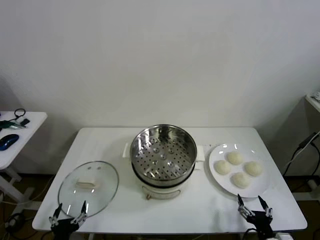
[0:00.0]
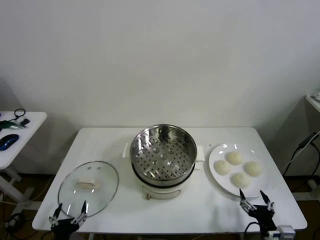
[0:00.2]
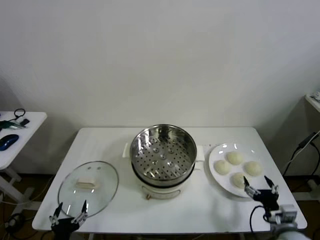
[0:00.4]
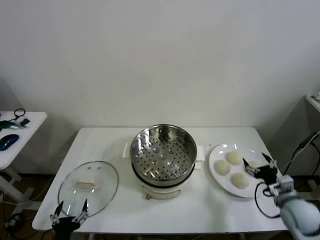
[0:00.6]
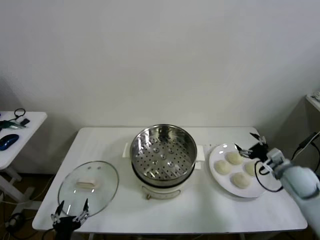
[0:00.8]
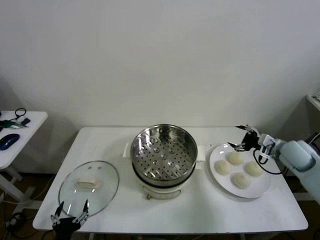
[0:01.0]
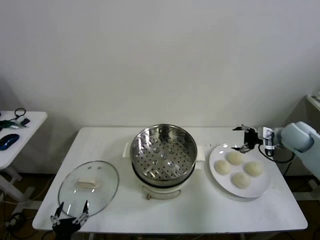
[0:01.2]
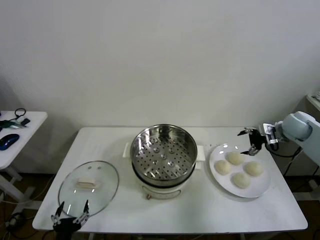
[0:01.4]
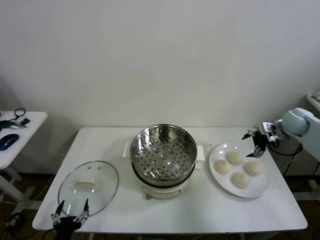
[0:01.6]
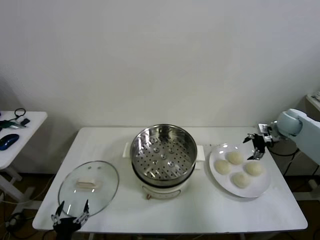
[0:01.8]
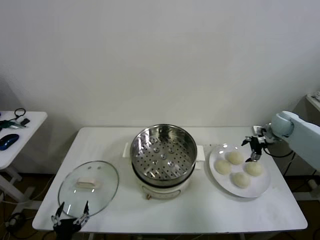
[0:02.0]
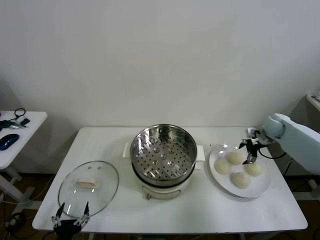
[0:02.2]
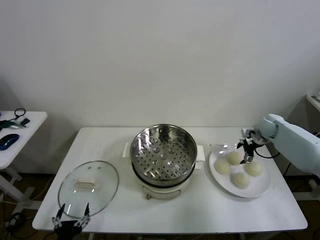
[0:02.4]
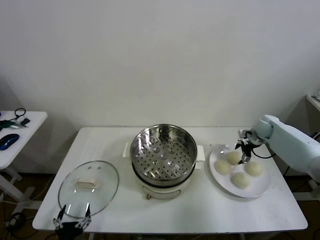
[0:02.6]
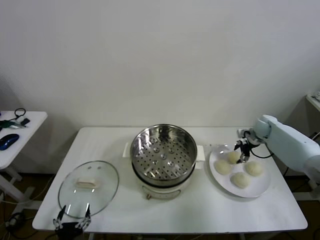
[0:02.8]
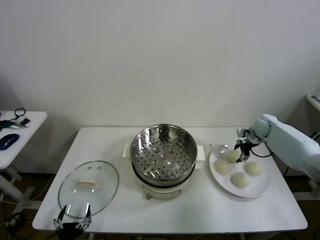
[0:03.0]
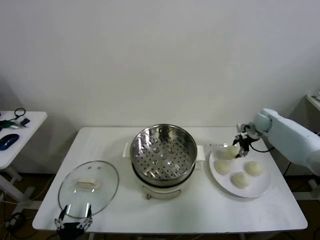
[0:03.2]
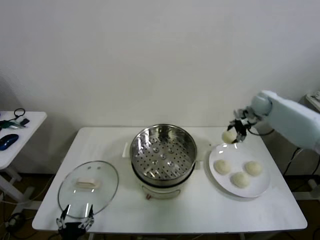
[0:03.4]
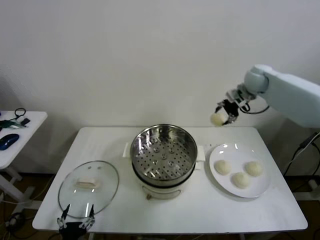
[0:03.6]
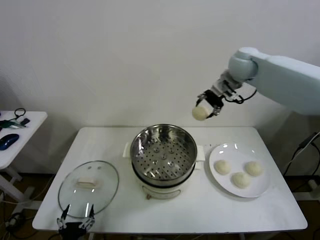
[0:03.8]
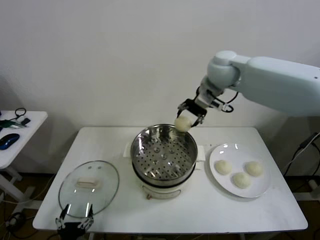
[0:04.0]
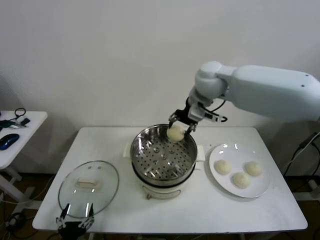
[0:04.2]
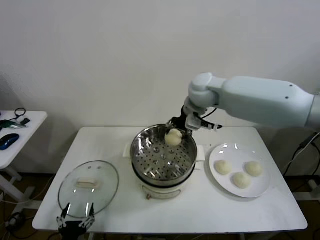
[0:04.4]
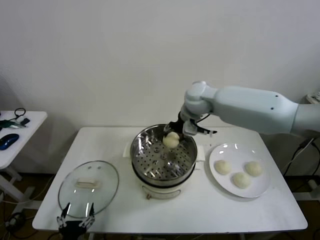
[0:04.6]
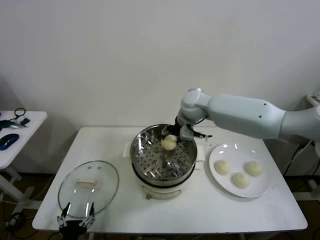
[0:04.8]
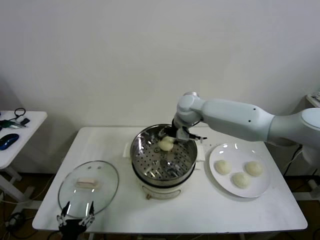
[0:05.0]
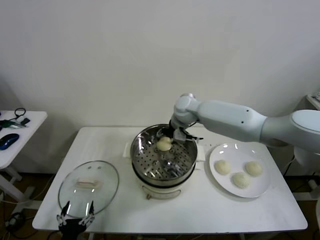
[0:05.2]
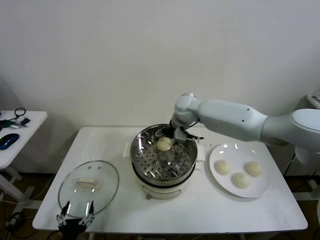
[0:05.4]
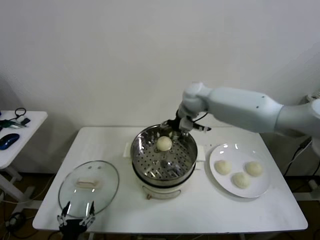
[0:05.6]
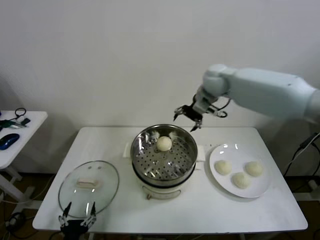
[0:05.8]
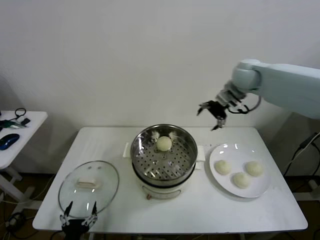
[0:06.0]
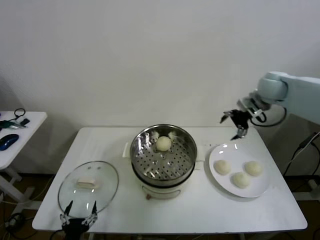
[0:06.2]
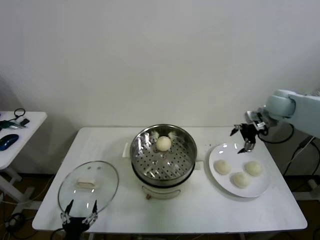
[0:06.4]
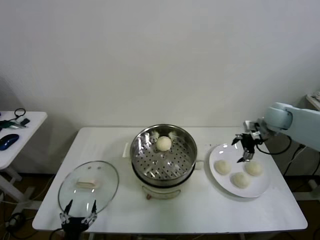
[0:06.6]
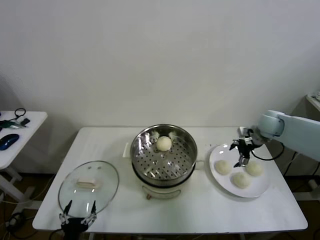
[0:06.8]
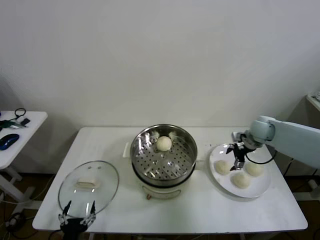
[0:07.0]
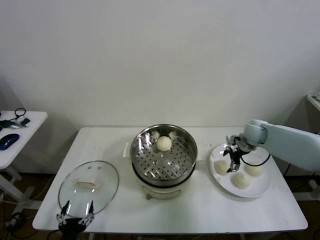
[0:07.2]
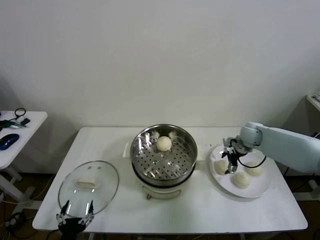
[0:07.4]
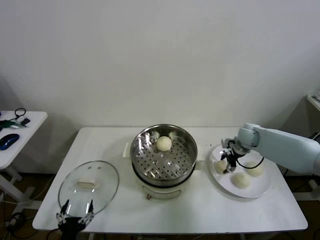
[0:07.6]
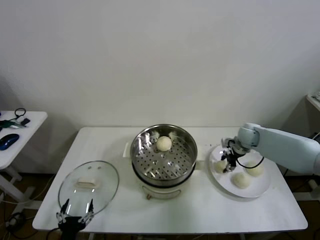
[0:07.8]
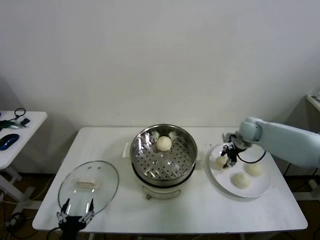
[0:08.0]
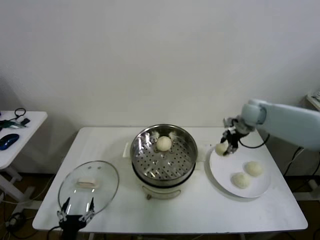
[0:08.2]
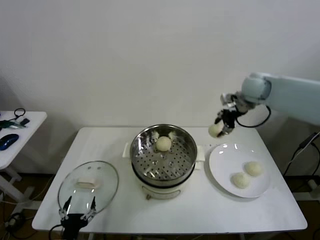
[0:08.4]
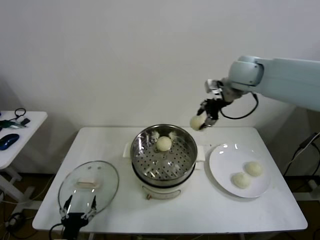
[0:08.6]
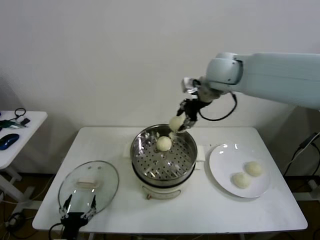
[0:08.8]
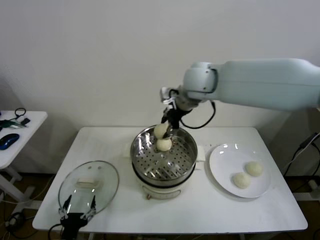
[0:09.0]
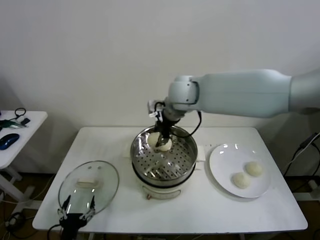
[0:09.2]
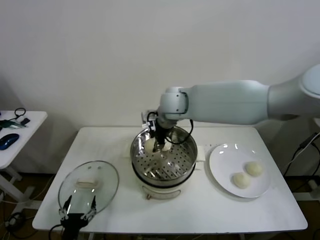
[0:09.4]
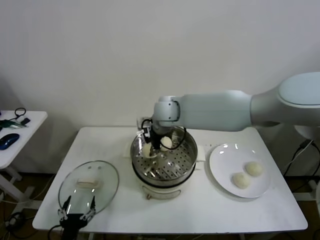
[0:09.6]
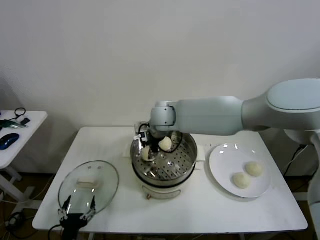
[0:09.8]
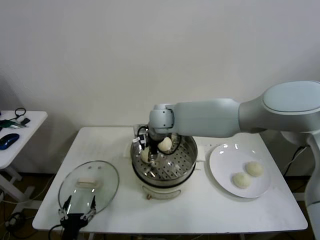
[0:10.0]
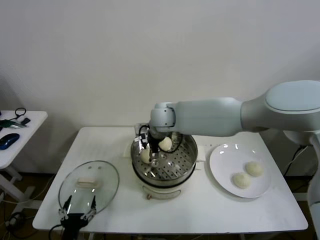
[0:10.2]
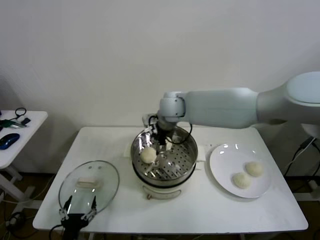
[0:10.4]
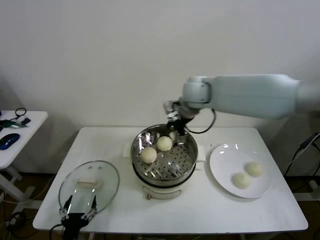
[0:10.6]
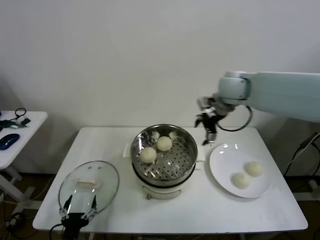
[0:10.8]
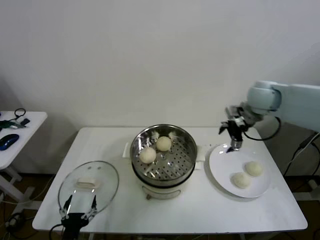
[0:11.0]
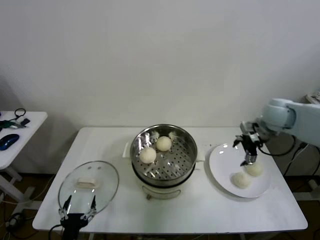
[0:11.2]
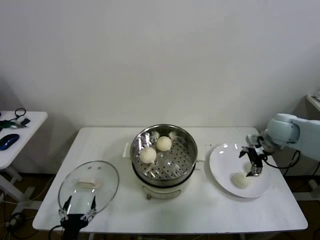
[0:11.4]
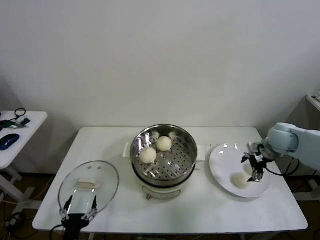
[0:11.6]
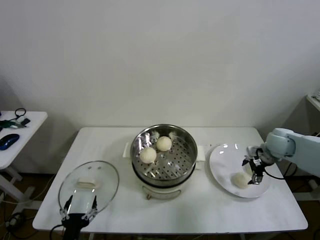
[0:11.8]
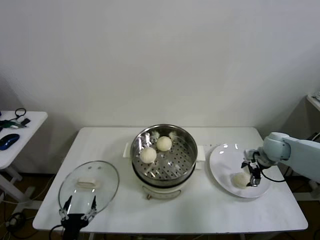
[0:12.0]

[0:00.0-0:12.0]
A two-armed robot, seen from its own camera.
Step, 0.0 to 2.8 s: Grasp the baozi in the plate with right gripper.
Step, 3.0 to 5.2 s: Place the baozi on the steamer with right gripper.
Step, 5.4 to 7.6 s: Grasp the baozi in the plate with right gripper.
Step, 7.8 to 10.0 s: Place the baozi on the steamer with right gripper.
1.6 to 3.0 s: The right gripper is displaced downward and forward by about 10 cm, and closes.
3.0 to 4.4 s: The right gripper travels to the left and upward by about 35 cm.
4.4 to 6.0 s: The right gripper shifts roughly 20 cm to the right, and opens up.
6.0 to 7.6 s: The right gripper travels downward by roughly 25 cm, and closes up.
7.6 to 9.0 s: The right gripper moves to the left and upward, some 35 cm.
9.0 to 10.4 s: The right gripper heads downward, covering about 10 cm, and opens.
10.4 to 12.0 s: The right gripper travels to the right and downward by approximately 40 cm.

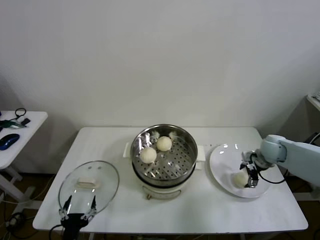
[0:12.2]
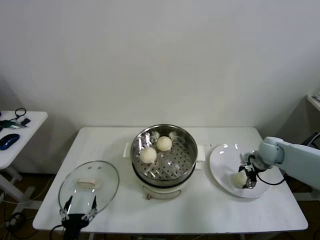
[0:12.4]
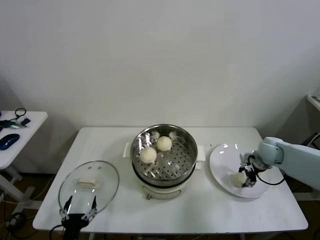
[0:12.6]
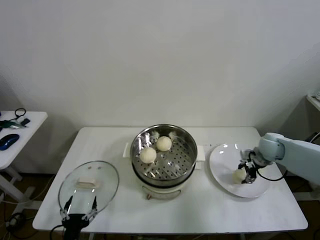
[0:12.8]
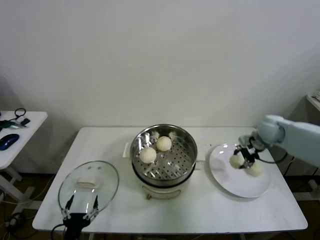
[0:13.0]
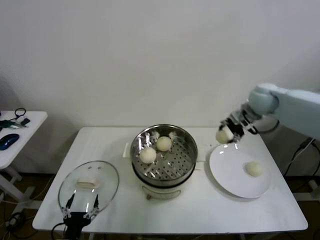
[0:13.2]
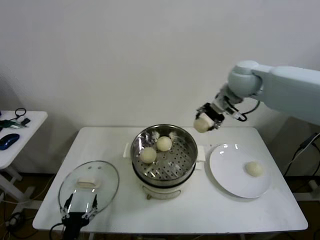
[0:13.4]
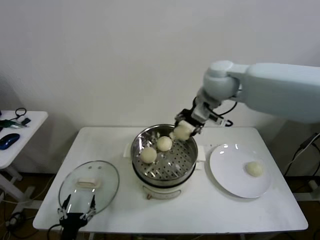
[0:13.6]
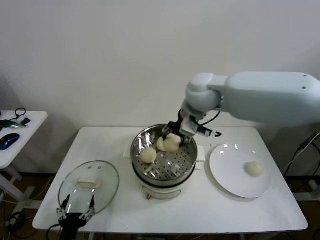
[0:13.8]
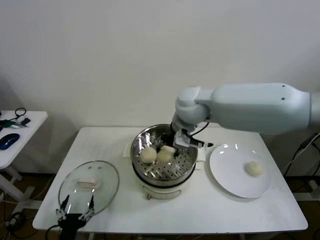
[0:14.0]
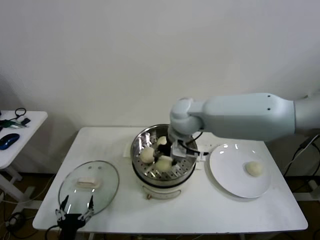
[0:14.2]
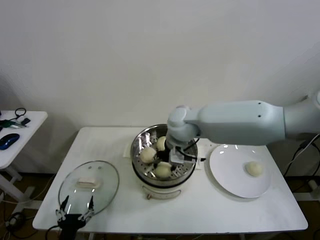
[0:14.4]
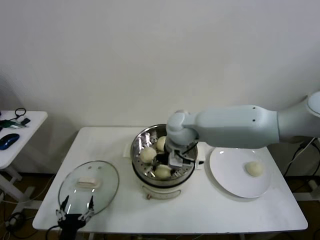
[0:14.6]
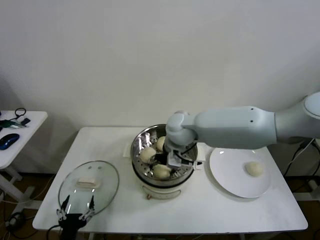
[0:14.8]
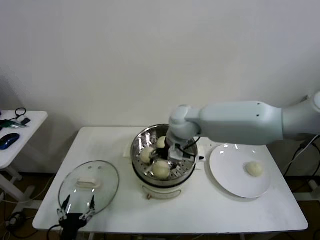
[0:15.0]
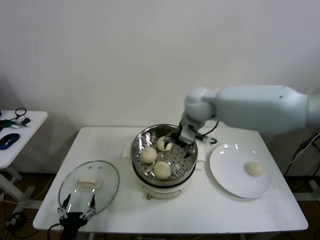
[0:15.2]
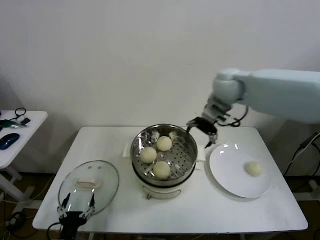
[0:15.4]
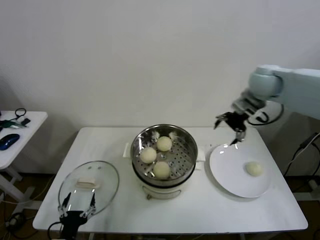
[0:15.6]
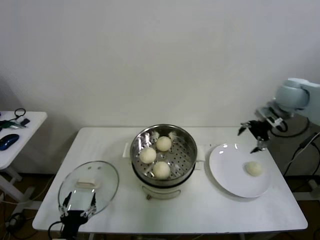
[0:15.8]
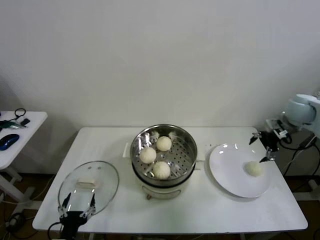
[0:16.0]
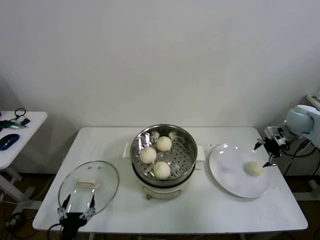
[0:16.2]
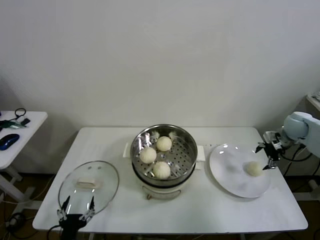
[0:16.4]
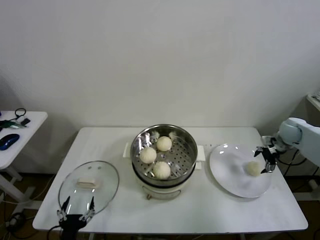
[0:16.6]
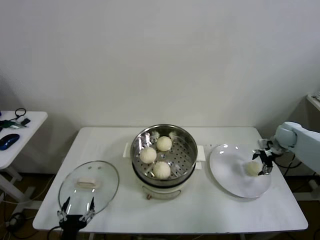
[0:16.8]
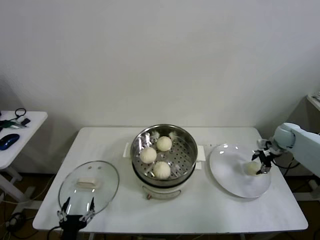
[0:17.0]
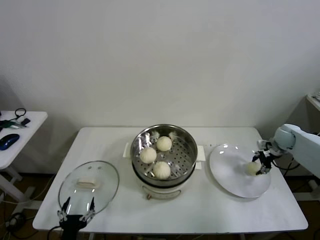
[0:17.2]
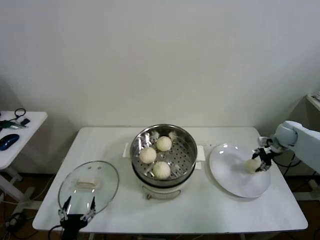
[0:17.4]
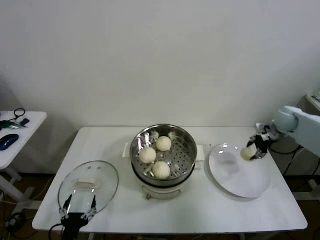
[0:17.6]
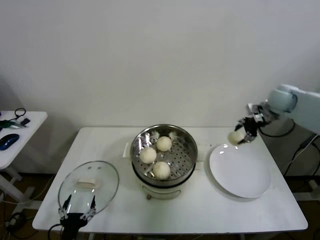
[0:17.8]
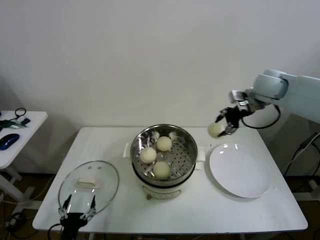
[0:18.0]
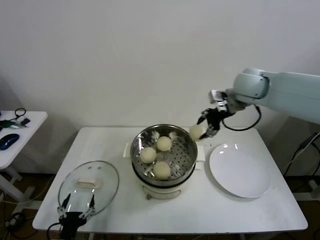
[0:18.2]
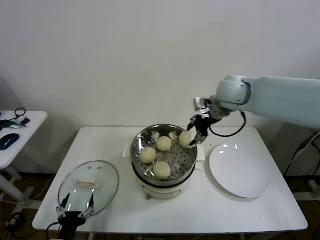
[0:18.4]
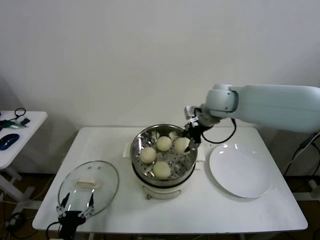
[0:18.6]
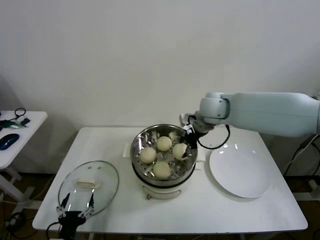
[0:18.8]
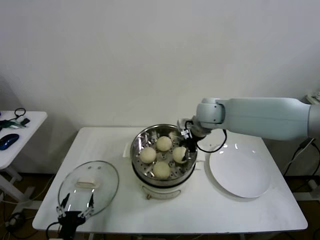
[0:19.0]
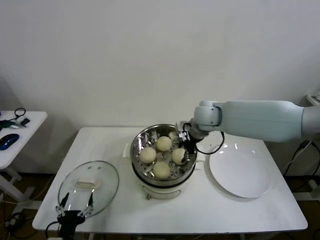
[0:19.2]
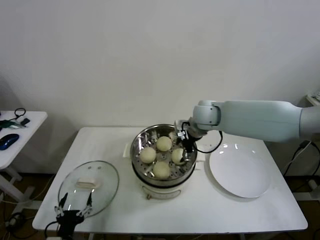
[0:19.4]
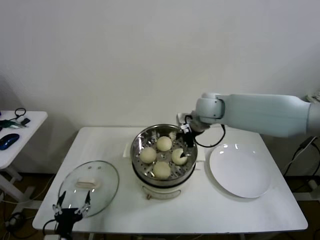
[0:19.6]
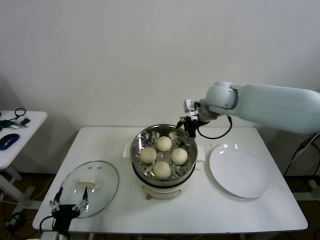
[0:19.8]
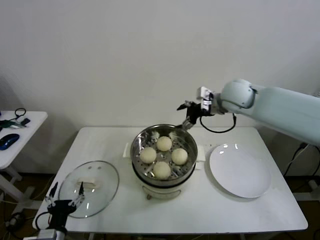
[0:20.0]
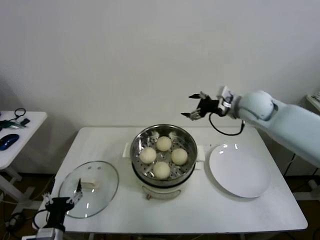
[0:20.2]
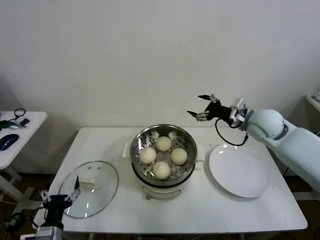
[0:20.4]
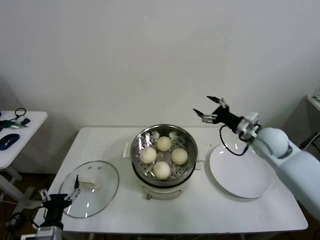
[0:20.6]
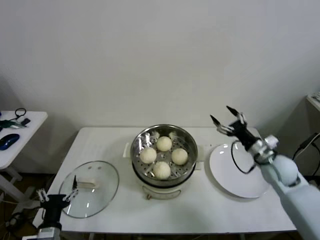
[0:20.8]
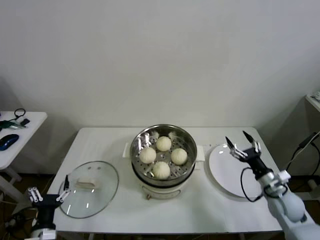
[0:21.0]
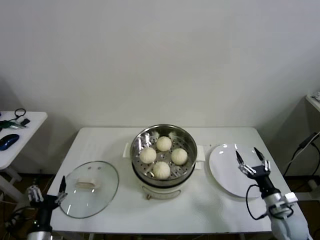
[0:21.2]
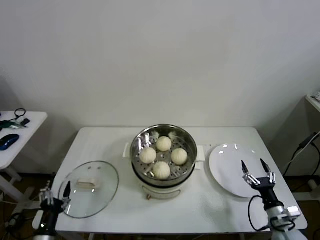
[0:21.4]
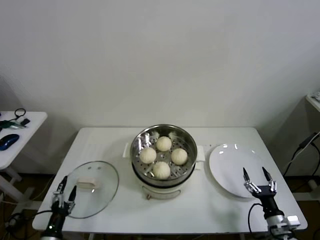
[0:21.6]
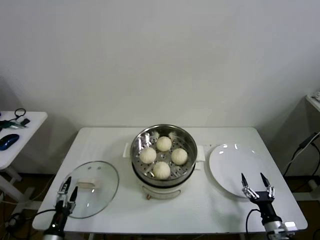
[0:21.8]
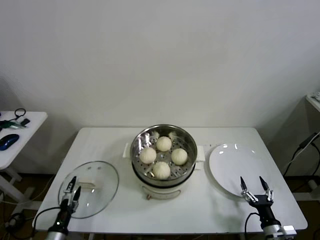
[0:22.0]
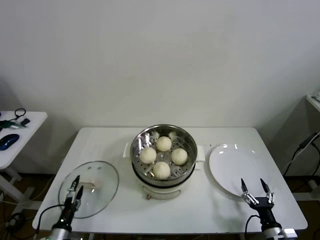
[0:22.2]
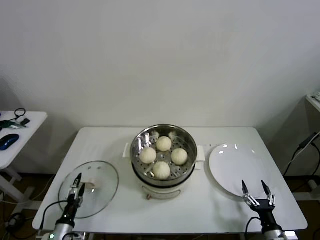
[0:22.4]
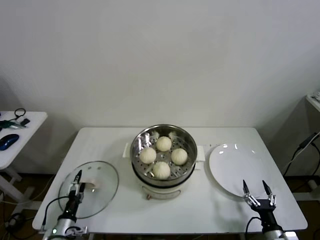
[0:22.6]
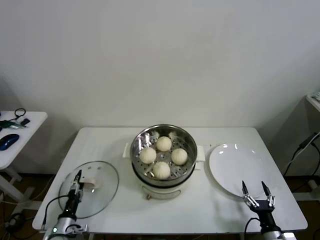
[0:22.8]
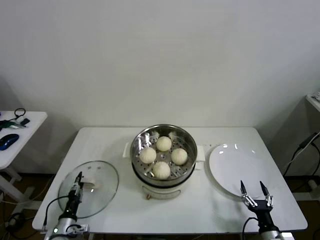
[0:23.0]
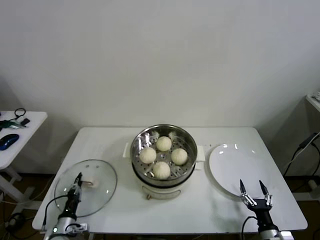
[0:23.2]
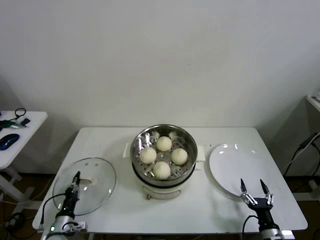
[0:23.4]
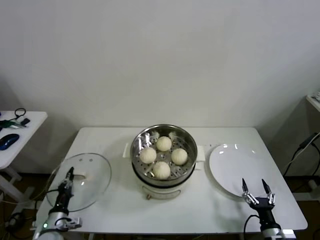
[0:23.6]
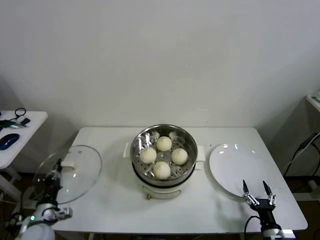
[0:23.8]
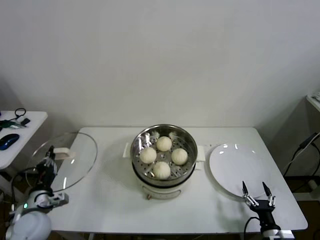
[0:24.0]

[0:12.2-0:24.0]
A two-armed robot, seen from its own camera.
Step, 12.8 to 14.6 s: Place the baozi on the steamer with right gripper.
Step, 14.8 to 17.0 s: Grasp the baozi in the plate with right gripper.
Step, 17.2 to 19.2 s: Place the baozi on the steamer with right gripper.
Step, 19.4 to 23.2 s: Grasp the pot lid with left gripper.
12.2 to 13.6 s: The right gripper shifts roughly 35 cm upward and to the left, and closes.
13.6 to 15.2 s: The right gripper is displaced downward by roughly 10 cm, and opens up.
15.2 to 16.6 s: The right gripper goes approximately 40 cm to the right and downward.
16.6 to 18.2 s: The right gripper heads to the left and upward, covering about 30 cm, and closes.
18.2 to 19.6 s: The right gripper goes about 15 cm to the left and downward, and opens its fingers.
19.6 to 21.0 s: The right gripper is displaced to the right, downward and backward by about 40 cm.
21.0 to 22.6 s: The right gripper goes roughly 20 cm backward and downward. The left gripper moves downward and forward, some 10 cm.
22.6 to 24.0 s: The left gripper moves upward, roughly 15 cm, and closes its fingers.
